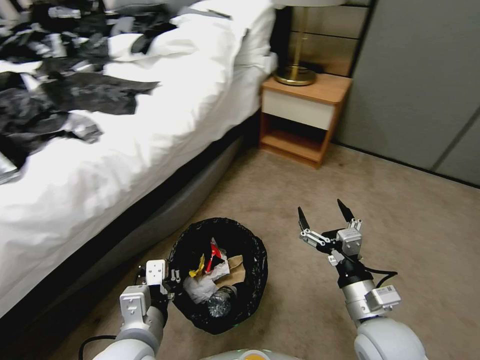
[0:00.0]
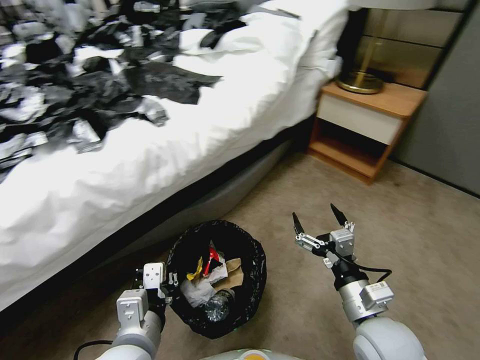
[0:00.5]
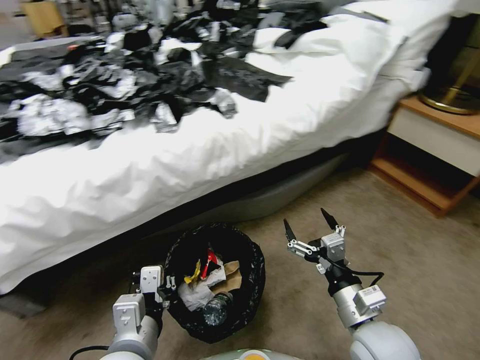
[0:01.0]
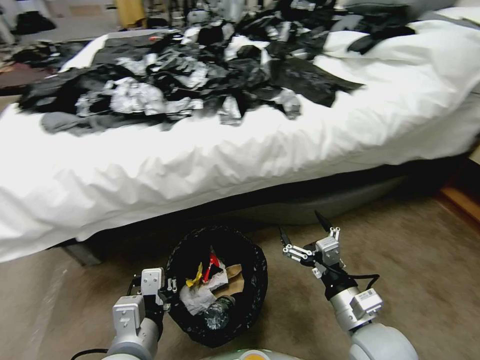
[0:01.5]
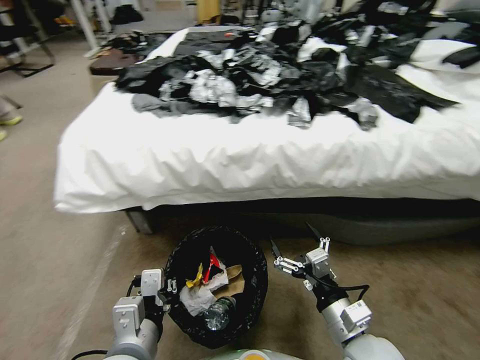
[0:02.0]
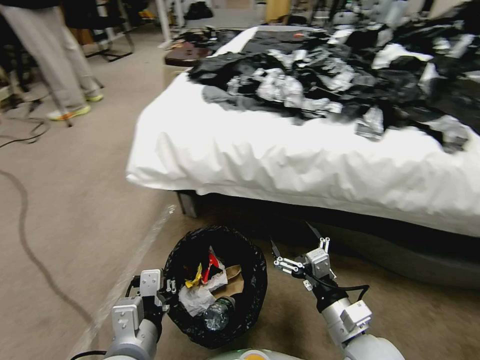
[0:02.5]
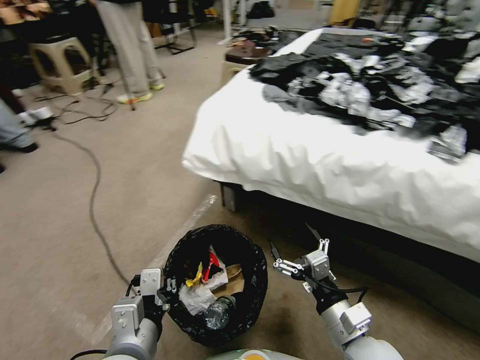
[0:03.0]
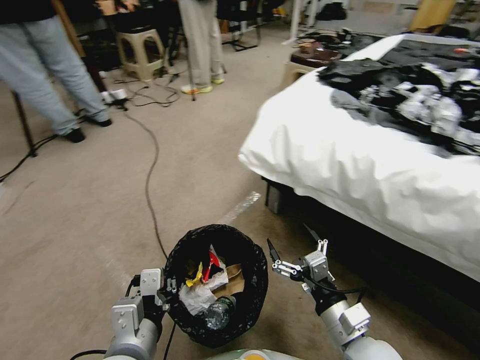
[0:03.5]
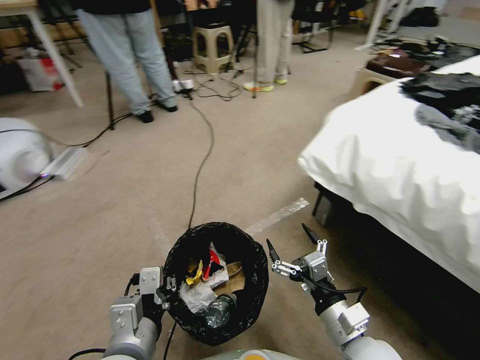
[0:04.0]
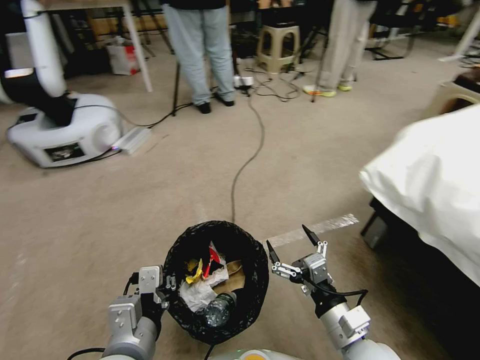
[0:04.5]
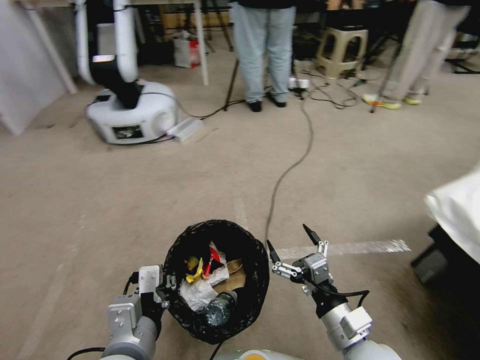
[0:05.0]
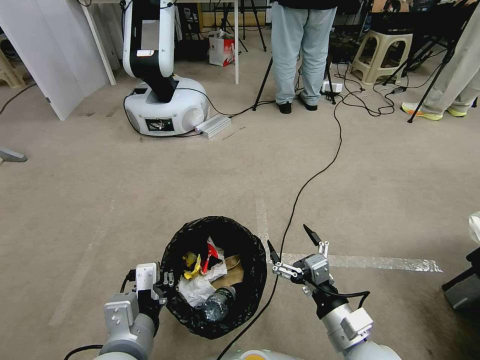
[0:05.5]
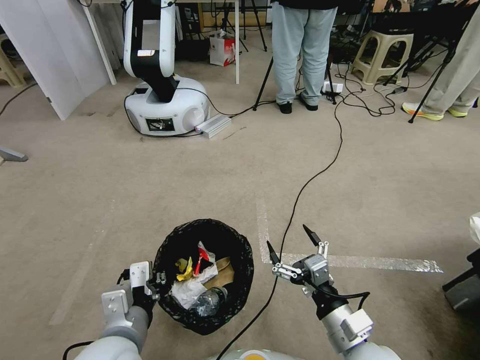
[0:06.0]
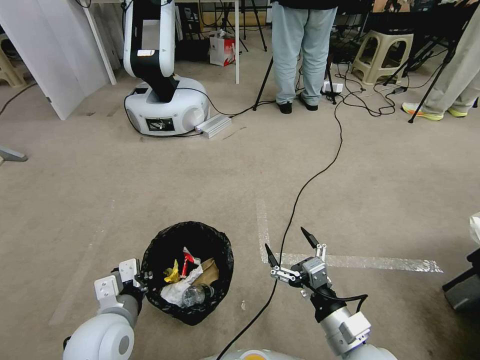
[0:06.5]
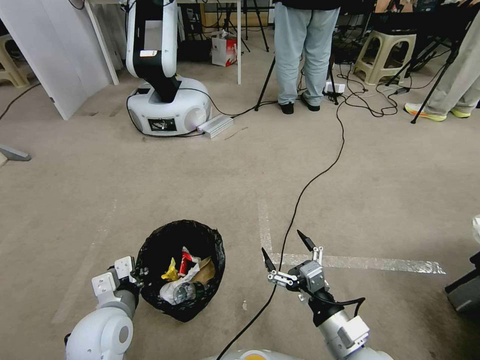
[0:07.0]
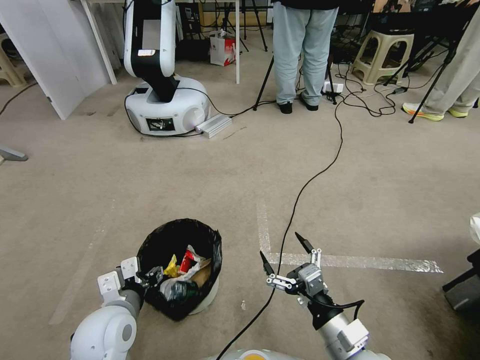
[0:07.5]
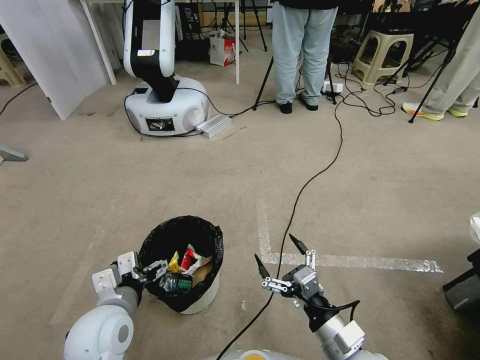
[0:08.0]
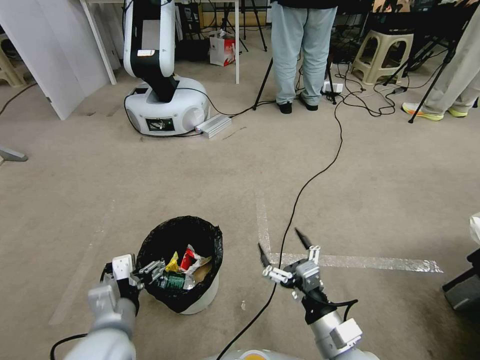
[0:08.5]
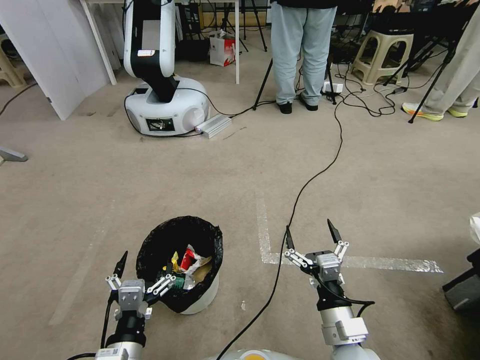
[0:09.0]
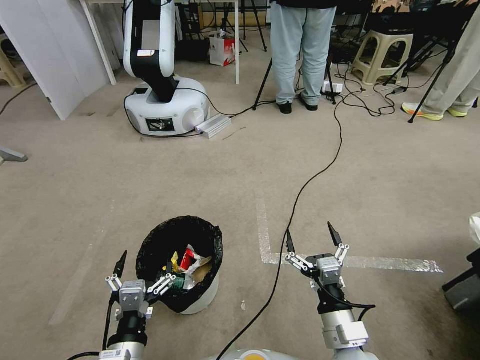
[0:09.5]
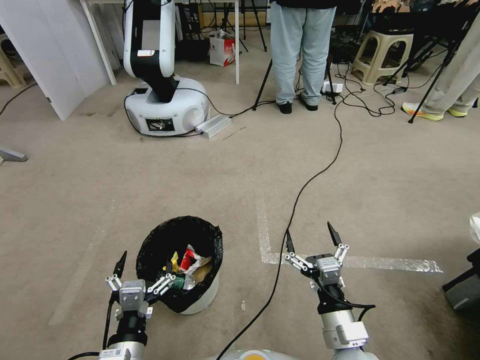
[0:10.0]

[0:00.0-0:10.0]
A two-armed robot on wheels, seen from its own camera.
Task of the whole recording: Pick up the trash bin, then pick up the garbage from the floor and place it into the trash bin.
0:06.0 to 0:08.0: The left gripper travels forward by some 5 cm, and opens up.
0:08.0 to 0:10.0: The left gripper is displaced backward by approximately 10 cm.

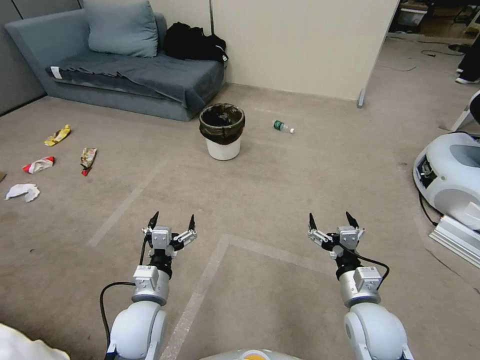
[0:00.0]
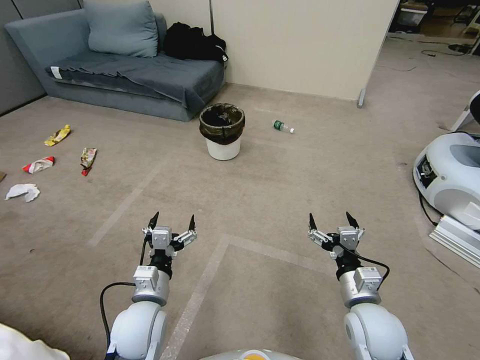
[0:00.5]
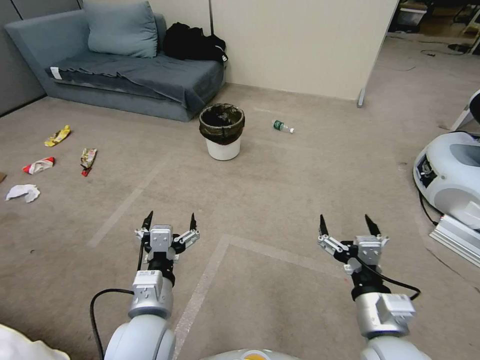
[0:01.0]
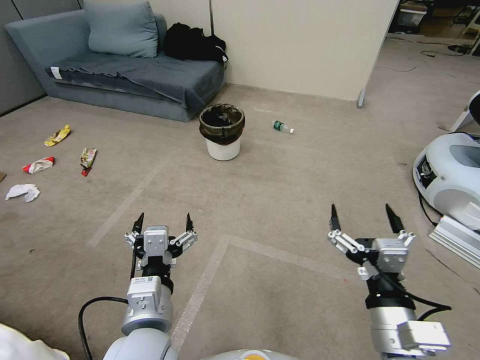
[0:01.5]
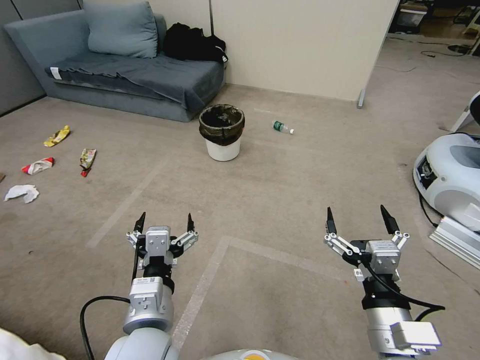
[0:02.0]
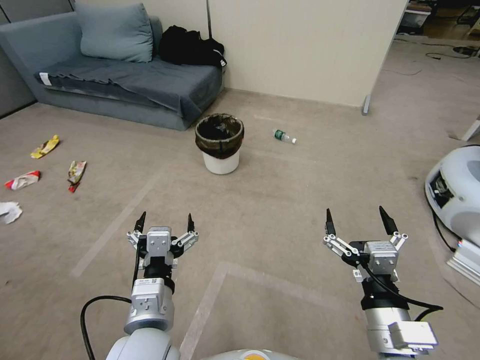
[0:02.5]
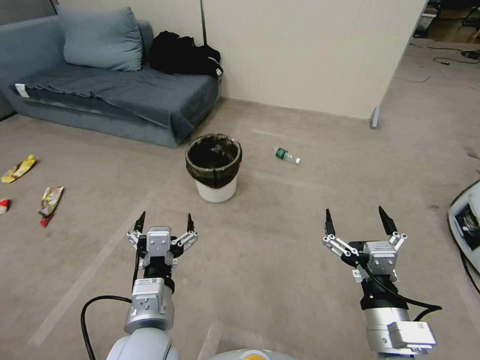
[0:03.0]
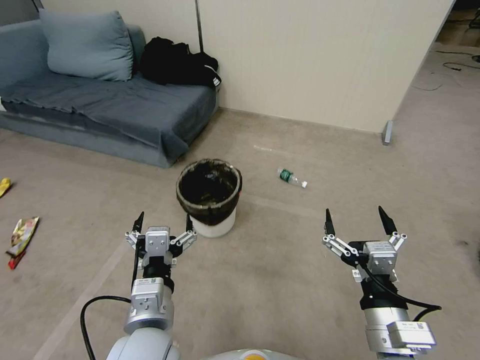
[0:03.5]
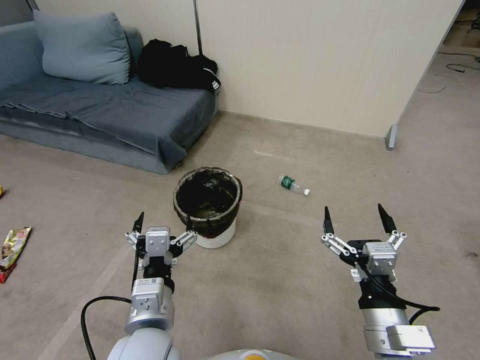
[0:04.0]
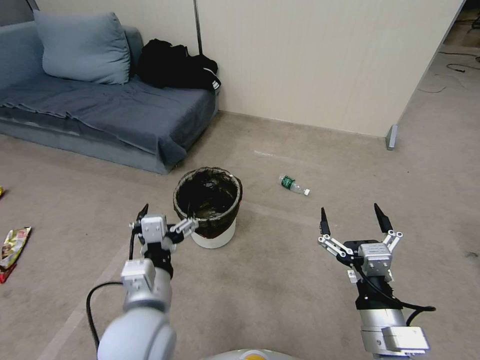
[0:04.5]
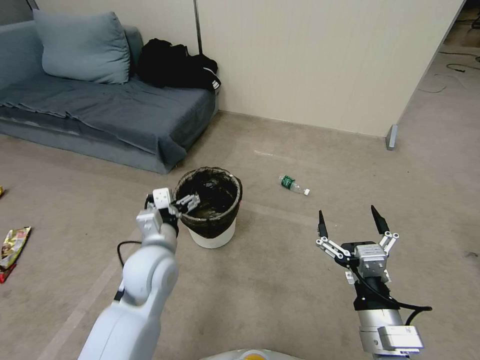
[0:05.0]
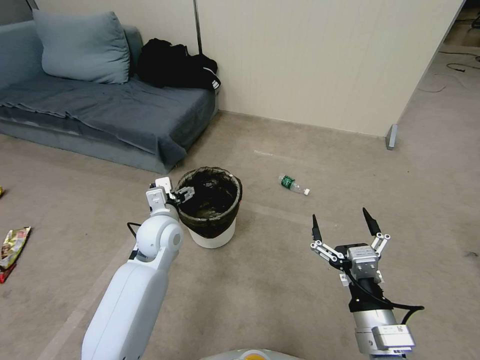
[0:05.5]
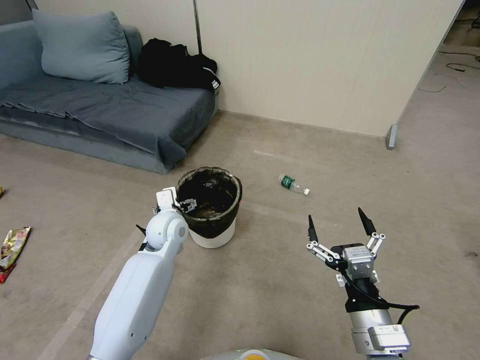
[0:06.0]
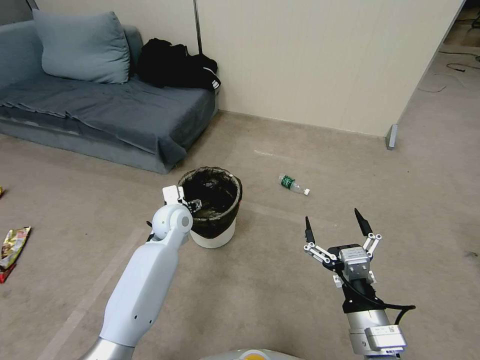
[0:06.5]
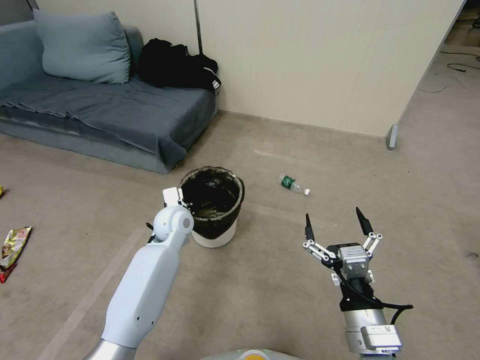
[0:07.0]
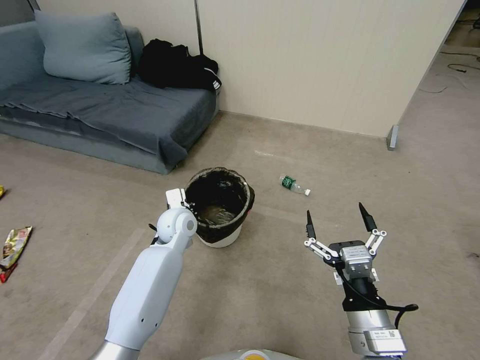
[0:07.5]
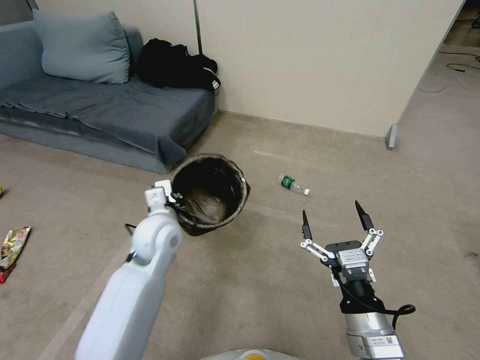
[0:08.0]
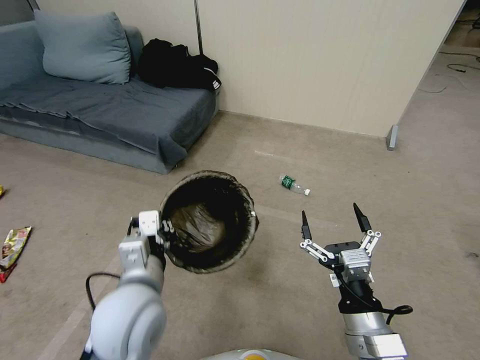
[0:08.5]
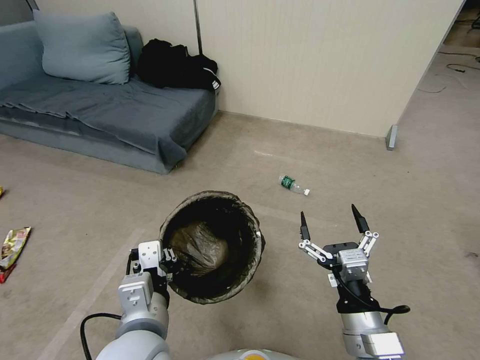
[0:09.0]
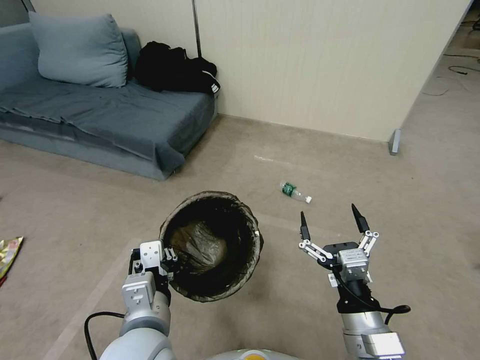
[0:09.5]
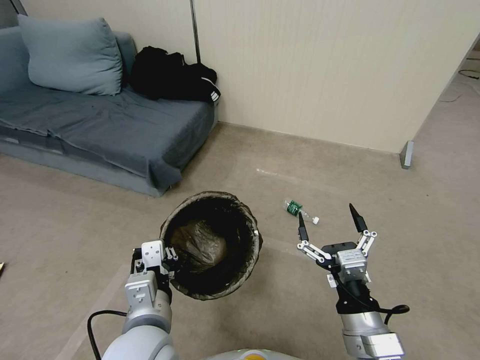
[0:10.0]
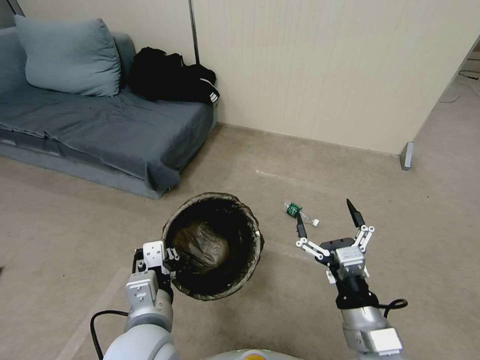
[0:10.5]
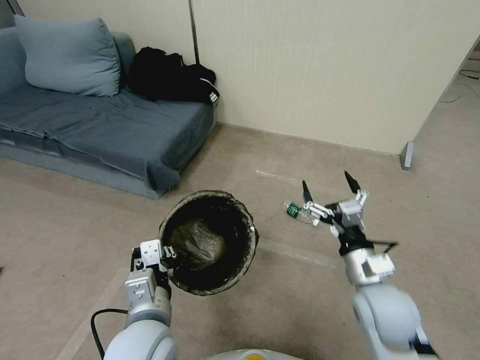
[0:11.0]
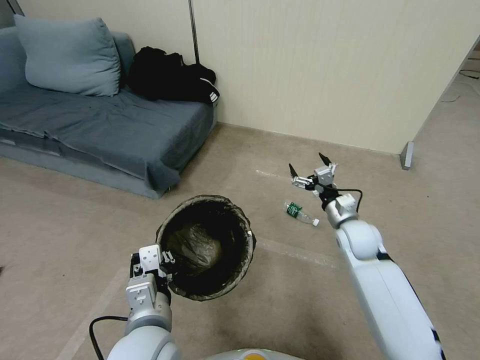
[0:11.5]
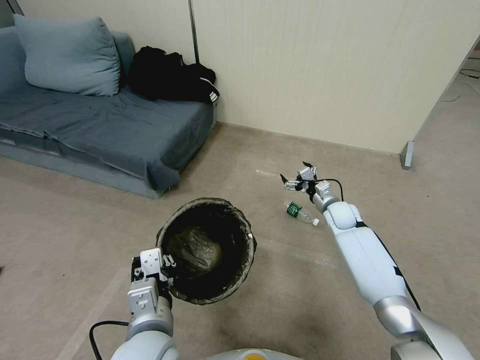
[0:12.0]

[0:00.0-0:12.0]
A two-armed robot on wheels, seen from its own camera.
Task of the whole recording: Pick up the trash bin, then pick up the garbage from the floor and place it into the trash bin.
0:04.0 to 0:06.0: The left gripper heads forward, covering about 25 cm.
0:06.0 to 0:08.0: The left gripper goes approximately 5 cm upward, and closes up.
0:08.0 to 0:10.0: The left gripper heads backward, covering some 20 cm.
0:10.0 to 0:12.0: The right gripper travels forward by approximately 40 cm.

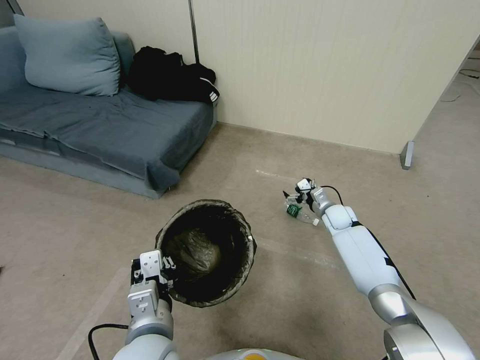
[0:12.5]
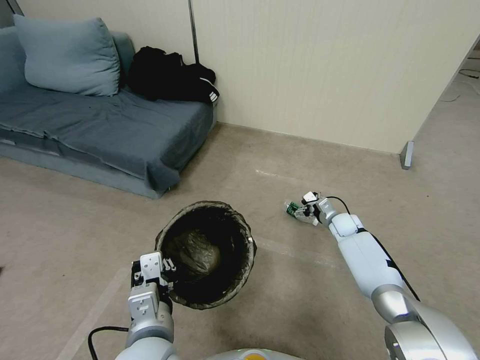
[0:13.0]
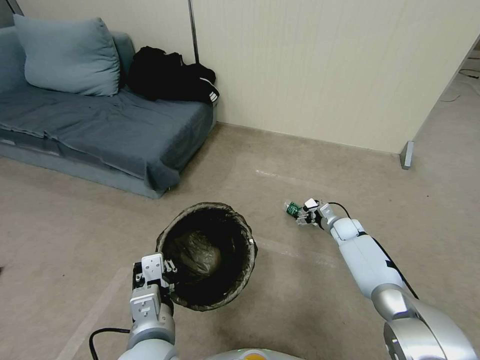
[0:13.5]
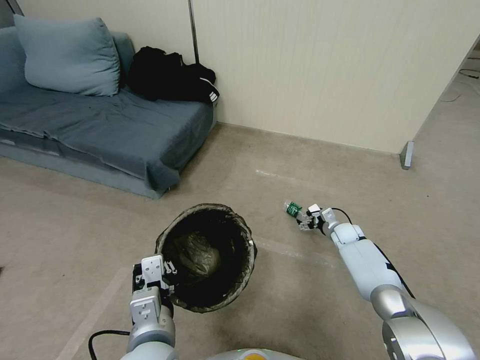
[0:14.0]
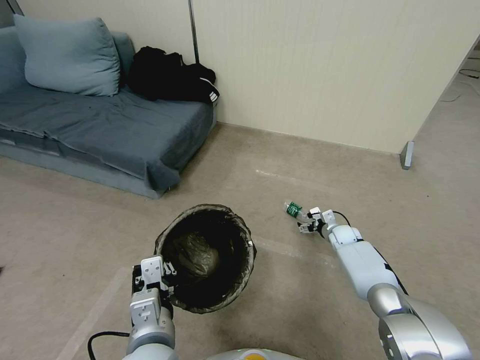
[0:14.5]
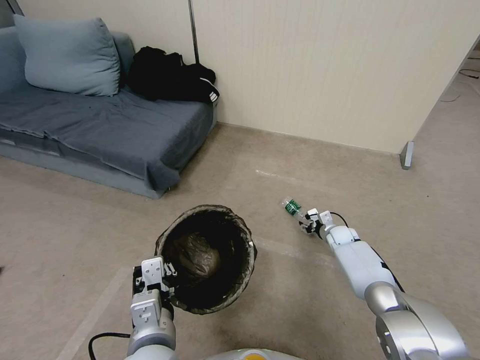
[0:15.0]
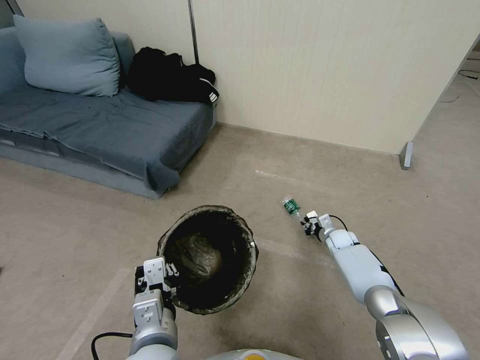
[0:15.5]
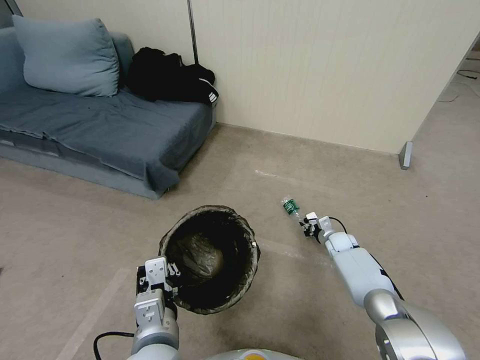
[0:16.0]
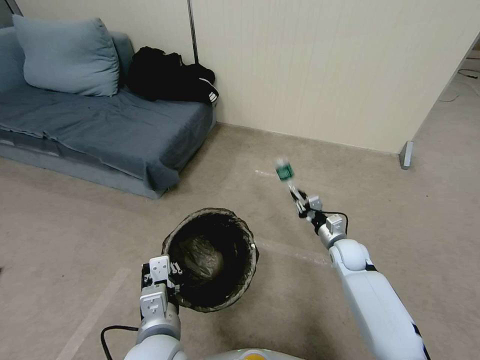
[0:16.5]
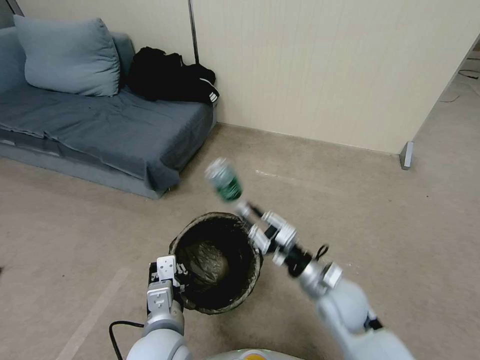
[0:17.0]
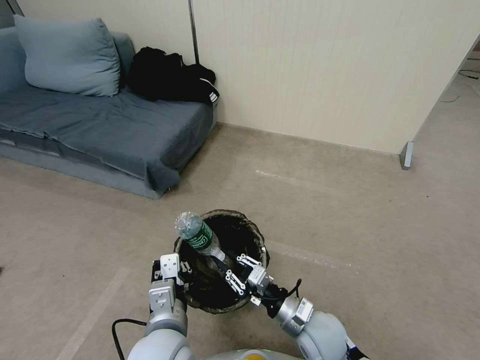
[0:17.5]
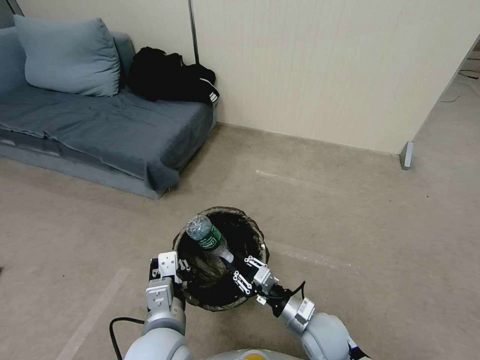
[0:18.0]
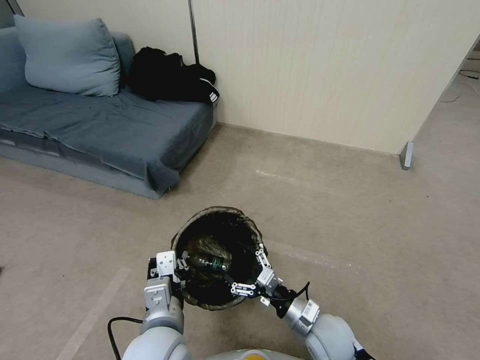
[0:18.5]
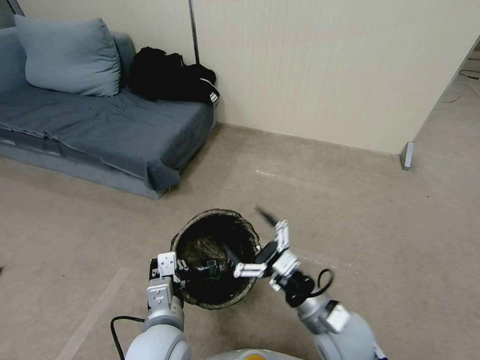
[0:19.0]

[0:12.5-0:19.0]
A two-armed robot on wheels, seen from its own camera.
Task of the whole recording: Pick up the trash bin, then pick up the garbage from the floor and place it into the trash bin.
0:12.5 to 0:14.5: The right gripper travels downward by some 10 cm.
0:14.5 to 0:17.0: The right gripper heads backward, upward and to the left, covering roughly 30 cm, and closes its fingers.
0:17.0 to 0:19.0: The right gripper travels backward by some 5 cm, reaches approximately 10 cm downward, then returns, and opens up.
